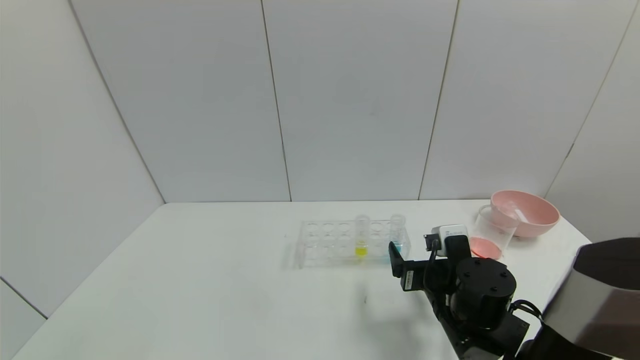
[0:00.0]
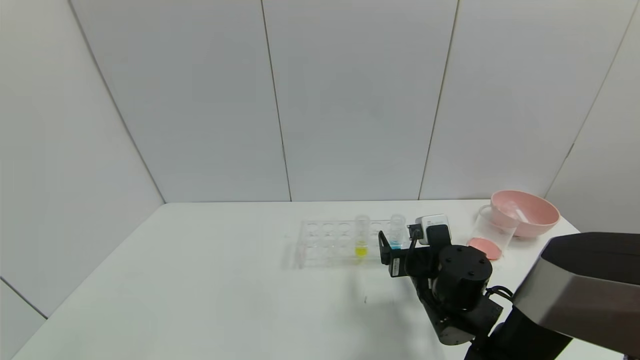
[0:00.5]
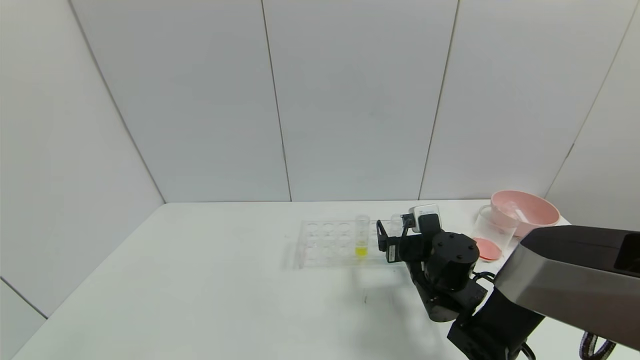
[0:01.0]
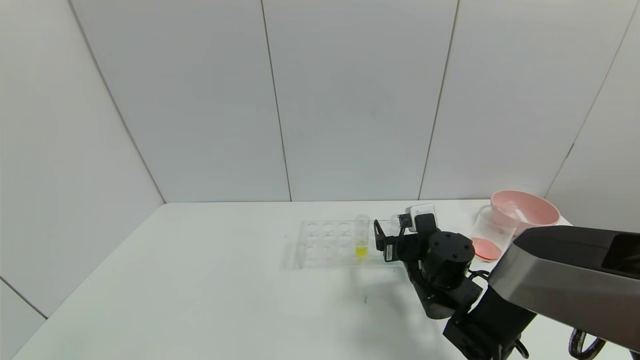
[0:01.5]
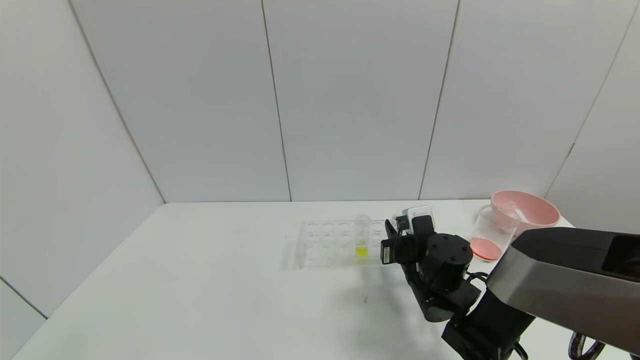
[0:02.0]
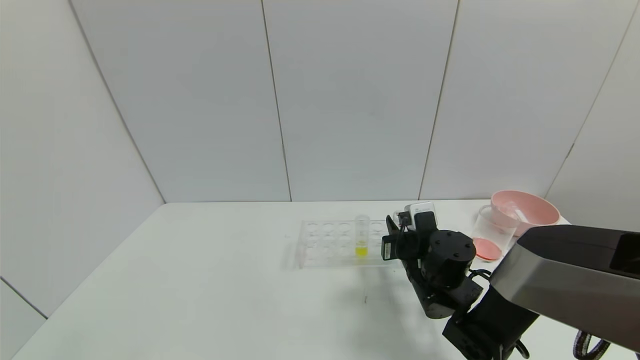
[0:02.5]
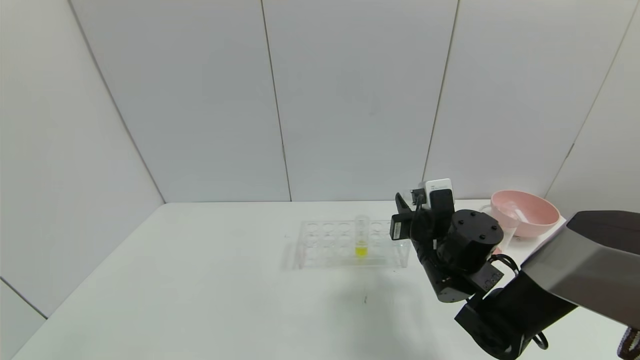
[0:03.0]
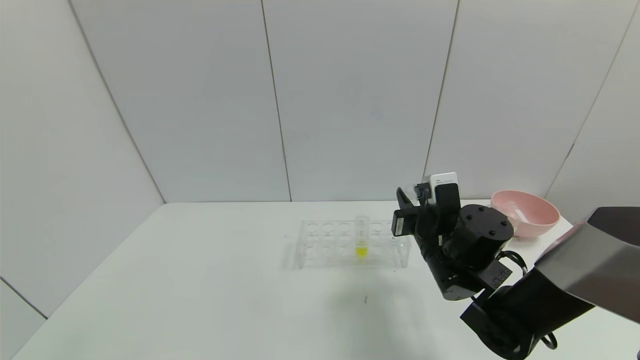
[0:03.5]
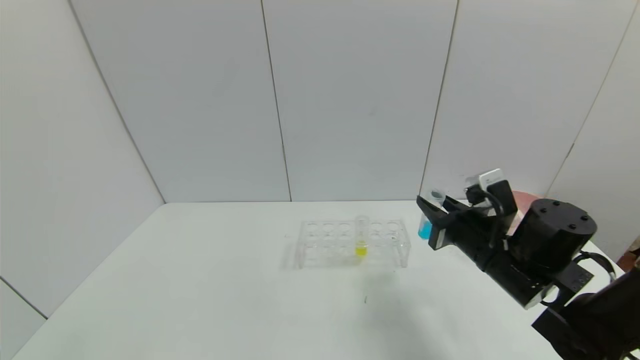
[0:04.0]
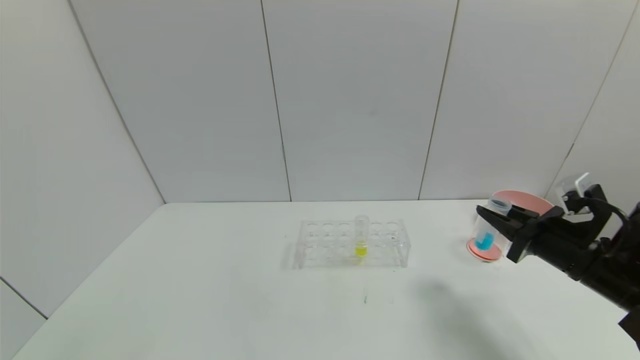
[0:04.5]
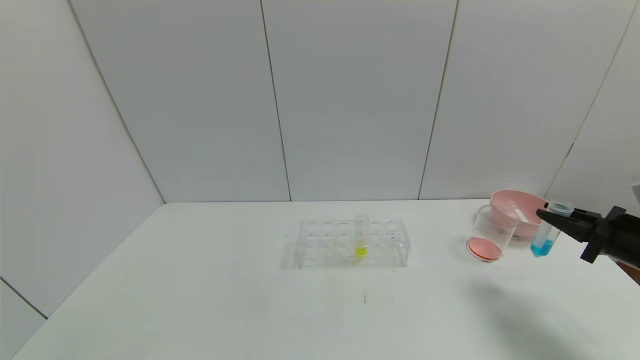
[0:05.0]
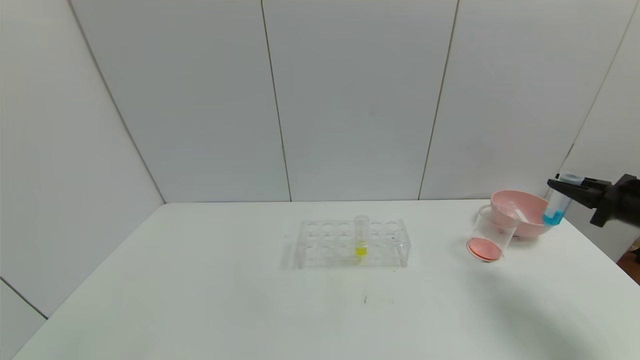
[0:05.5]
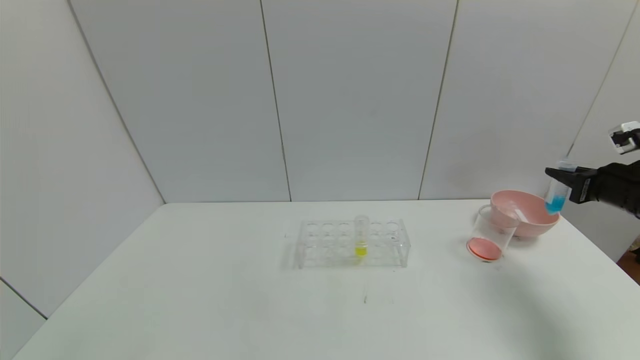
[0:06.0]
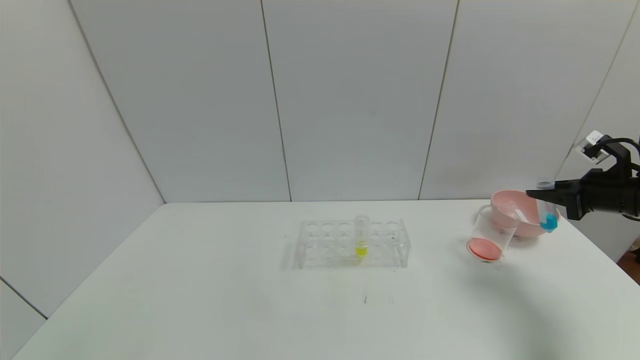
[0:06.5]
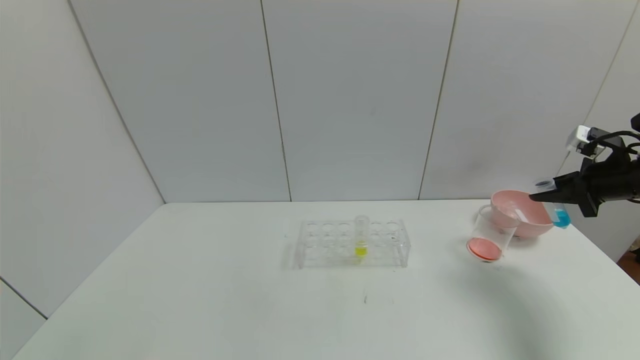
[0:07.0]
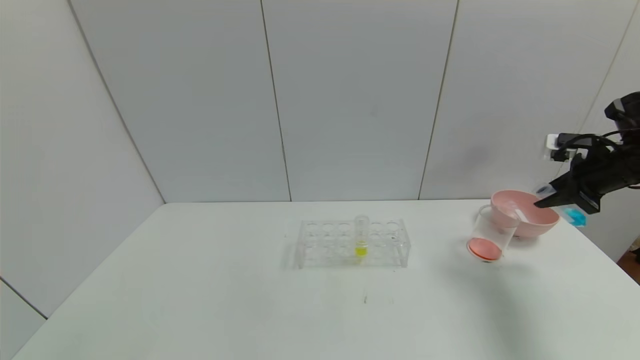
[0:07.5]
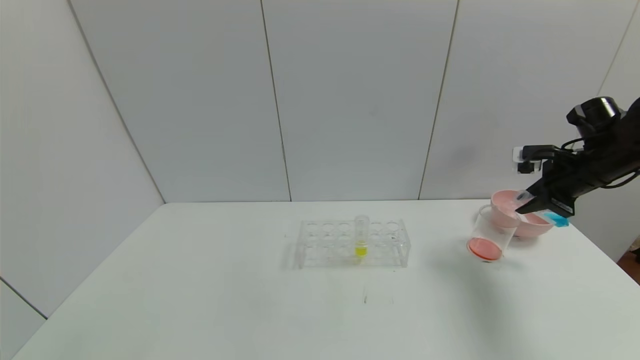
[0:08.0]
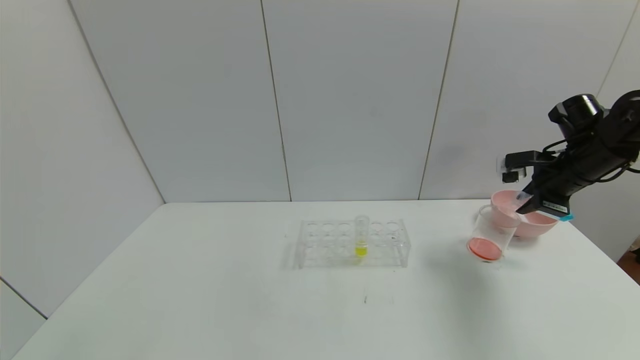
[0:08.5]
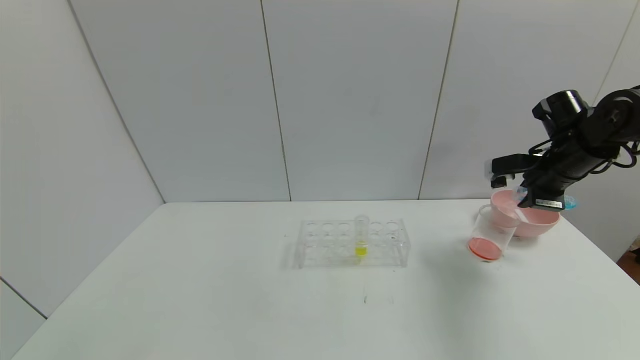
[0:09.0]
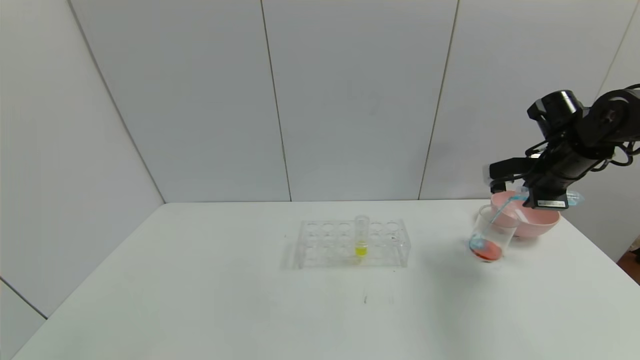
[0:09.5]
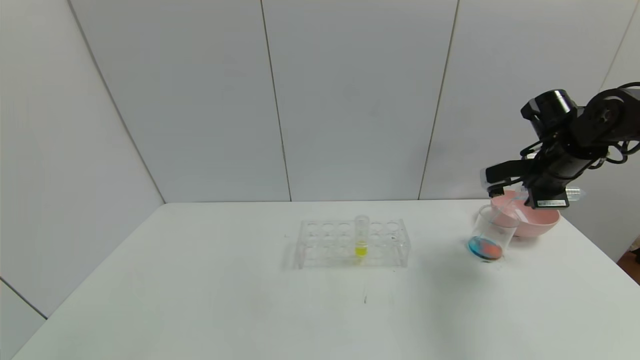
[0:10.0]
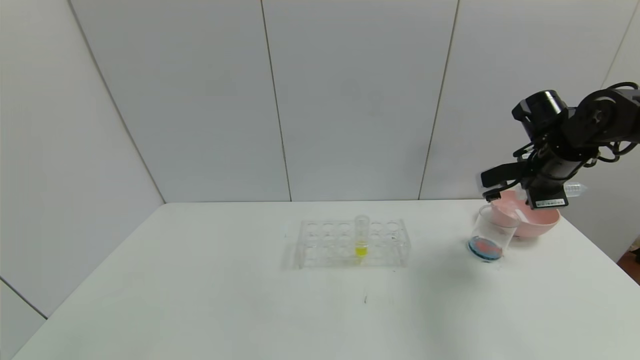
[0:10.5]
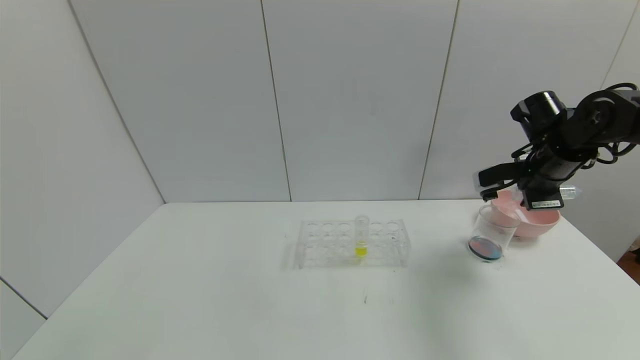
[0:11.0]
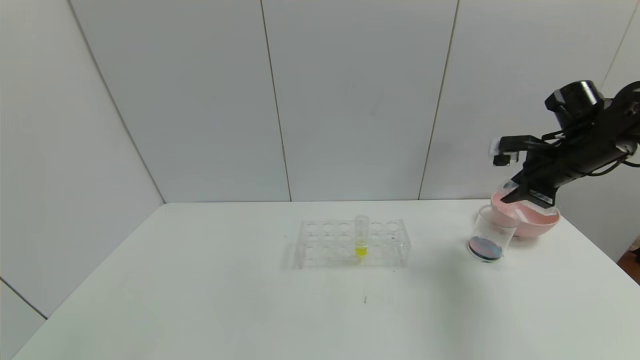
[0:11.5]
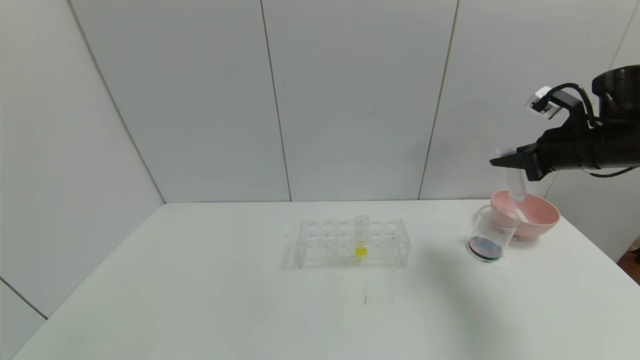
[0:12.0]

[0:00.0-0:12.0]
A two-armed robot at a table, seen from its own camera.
Task of the whole recording: pick up the test tube with red pigment and the test tube with blue pigment by grippers and pour them into the container.
Step, 0:00.0 to 0:04.0: Pick up the test tube containing the blue reagent with right gripper.
0:00.0 to 0:02.0: The right gripper is displaced forward by some 5 cm, and closes its fingers.
0:02.0 to 0:04.0: The right gripper heads to the right and upward, covering about 10 cm.
0:04.0 to 0:06.0: The right gripper moves to the right, about 25 cm.
0:06.0 to 0:08.0: The right gripper heads forward and to the left, covering about 10 cm.
0:08.0 to 0:10.0: The right gripper goes approximately 5 cm to the left.

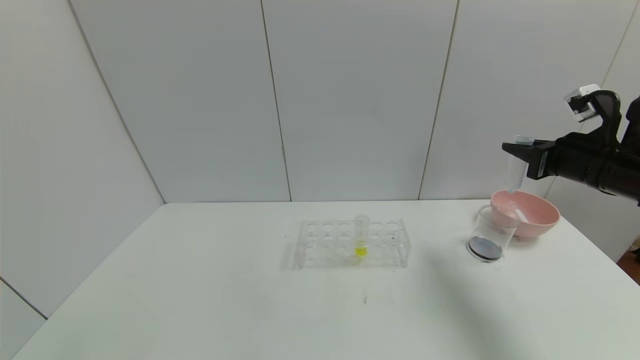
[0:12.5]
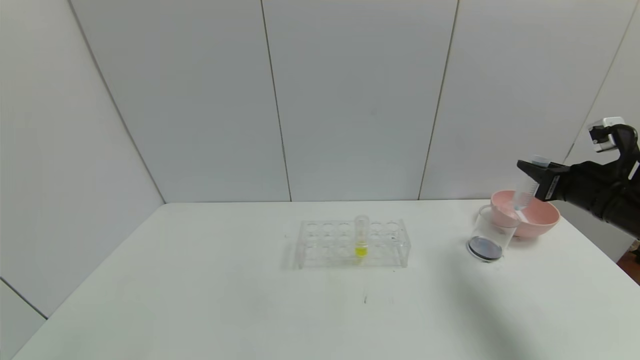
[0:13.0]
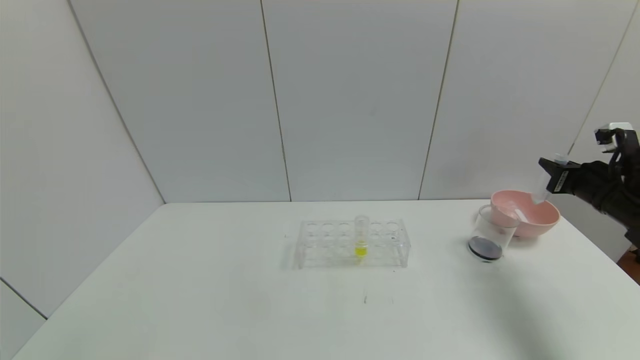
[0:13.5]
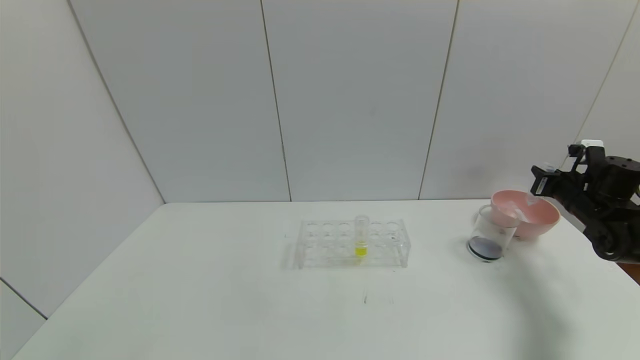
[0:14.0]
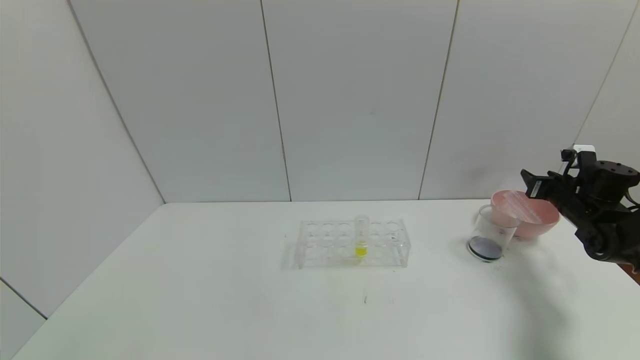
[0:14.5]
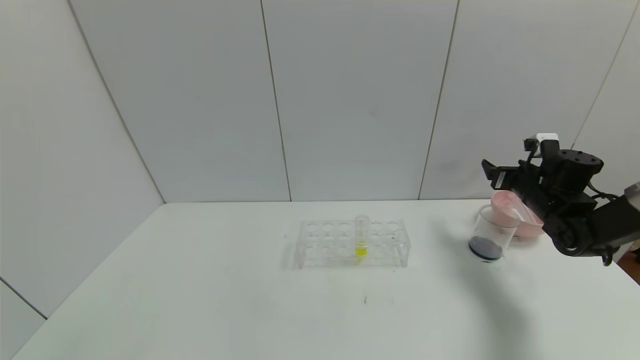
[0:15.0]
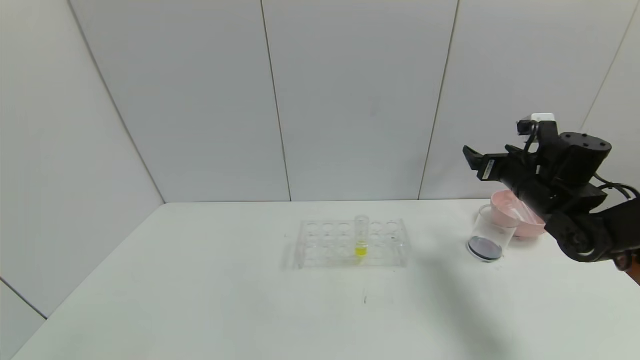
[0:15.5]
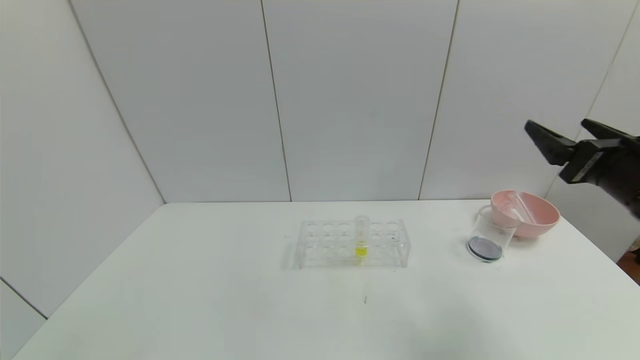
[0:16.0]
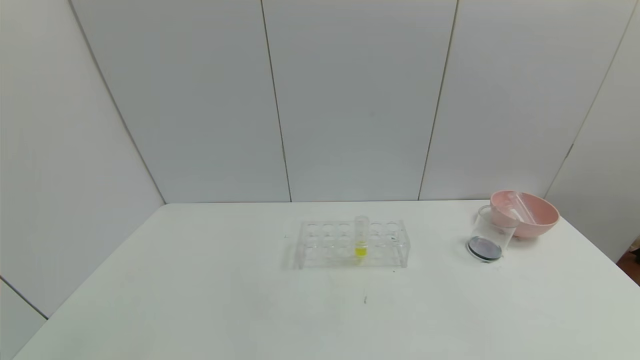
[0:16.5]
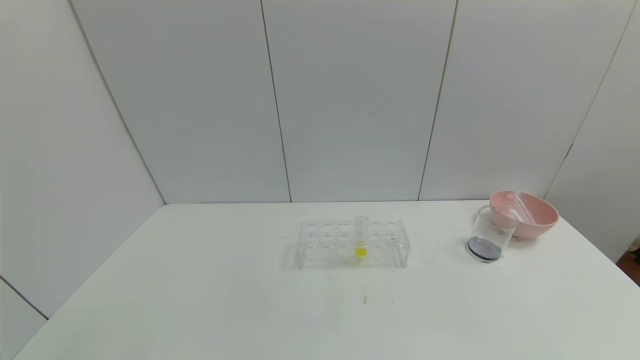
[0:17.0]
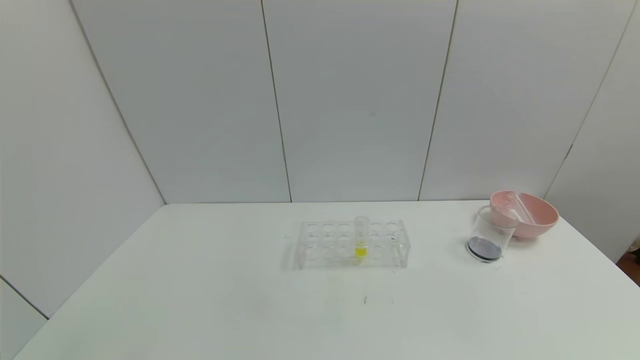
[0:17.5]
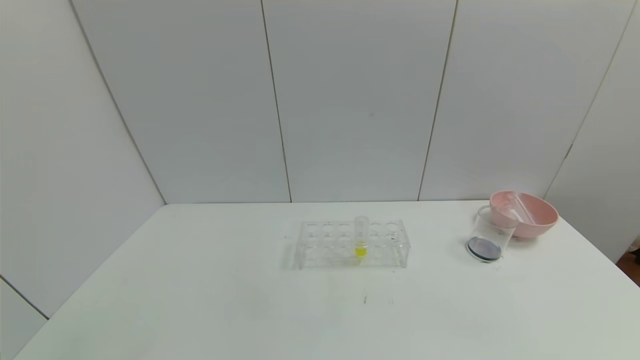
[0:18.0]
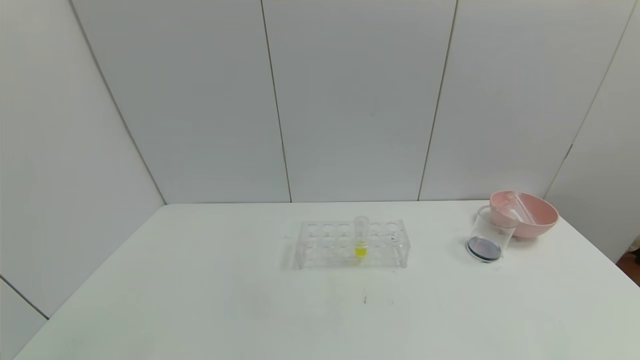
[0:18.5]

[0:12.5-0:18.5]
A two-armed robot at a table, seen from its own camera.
Task of the whole recording: pick up the test tube with red pigment and the test tube with blue pigment by grippers and pour them into the container.
Step, 0:13.5 to 0:15.5: Place the test tube into the bowl with right gripper.
0:12.5 to 0:14.5: The right gripper is displaced downward, to the right and forward by approximately 20 cm, and opens.
0:14.5 to 0:16.5: The right gripper moves backward and upward, approximately 35 cm, and opens its fingers.
